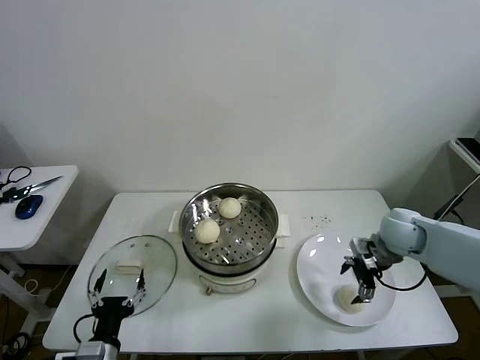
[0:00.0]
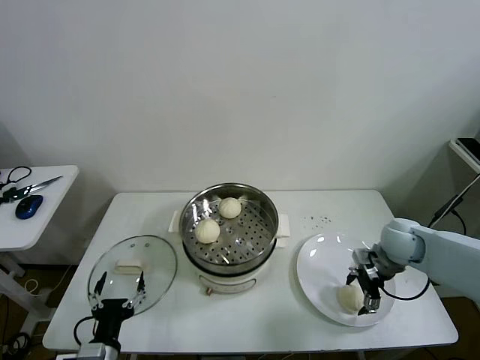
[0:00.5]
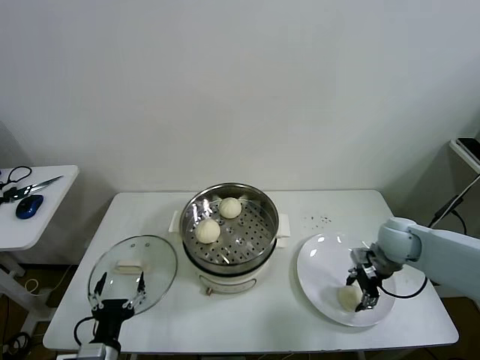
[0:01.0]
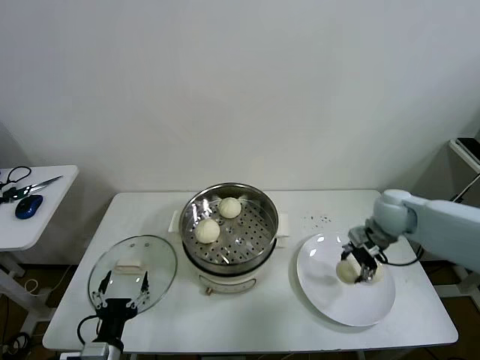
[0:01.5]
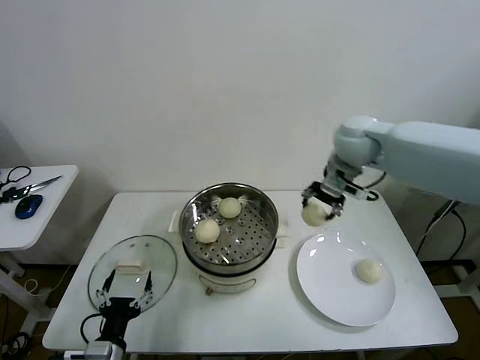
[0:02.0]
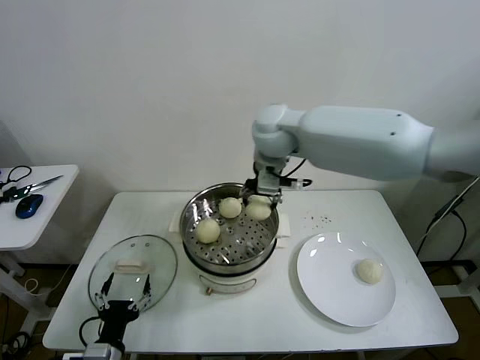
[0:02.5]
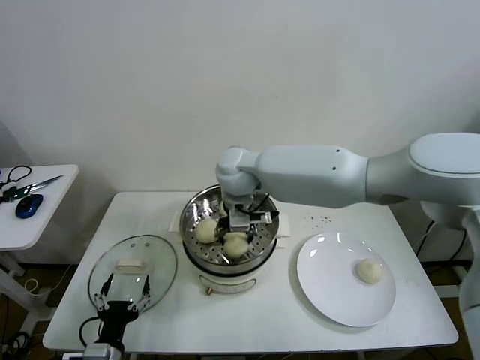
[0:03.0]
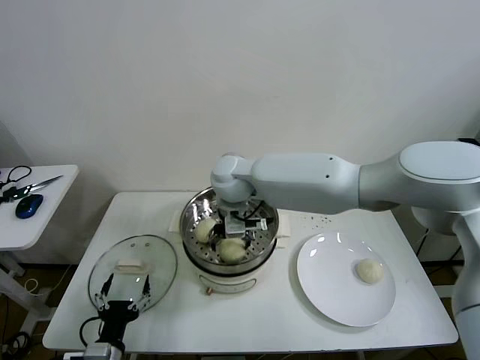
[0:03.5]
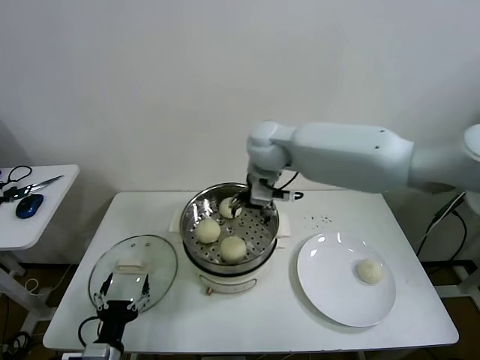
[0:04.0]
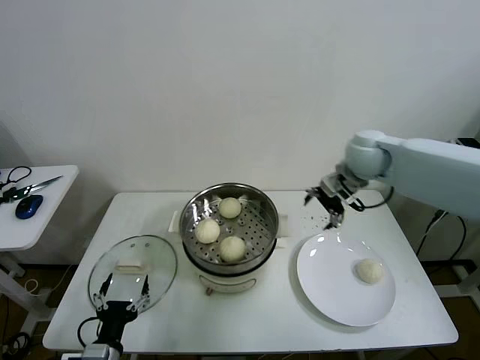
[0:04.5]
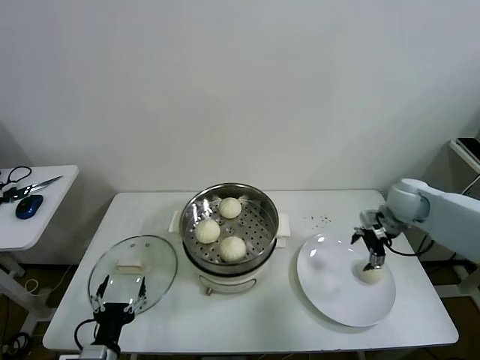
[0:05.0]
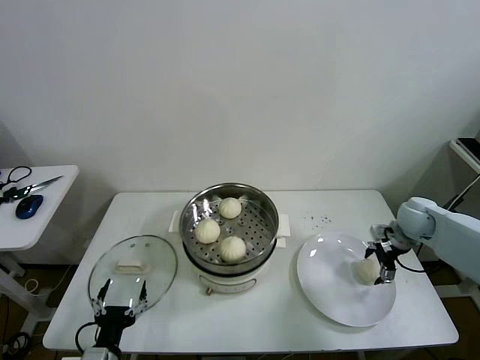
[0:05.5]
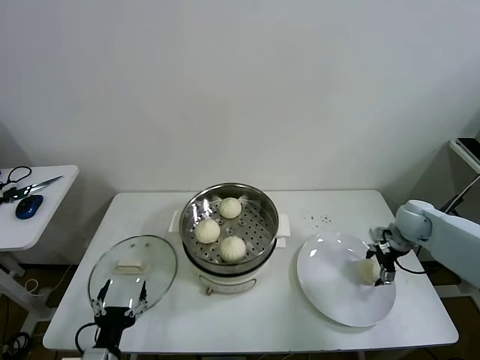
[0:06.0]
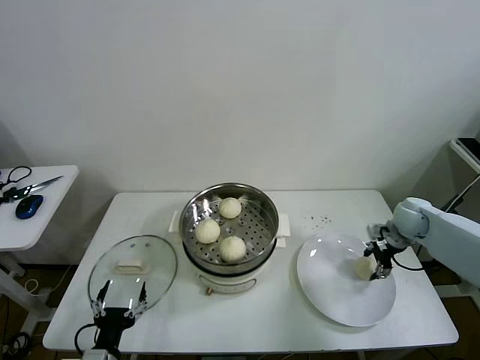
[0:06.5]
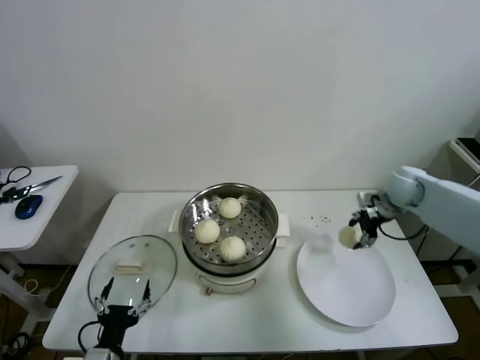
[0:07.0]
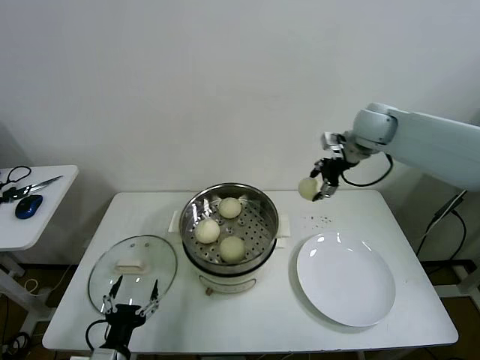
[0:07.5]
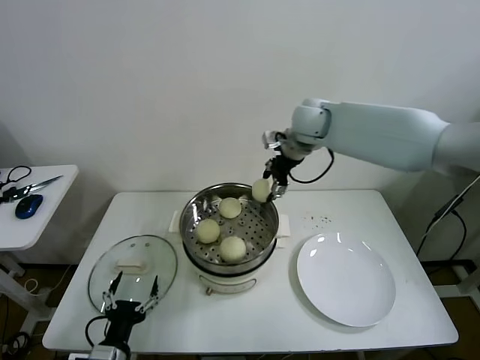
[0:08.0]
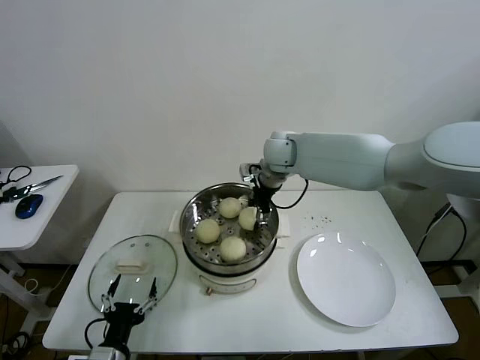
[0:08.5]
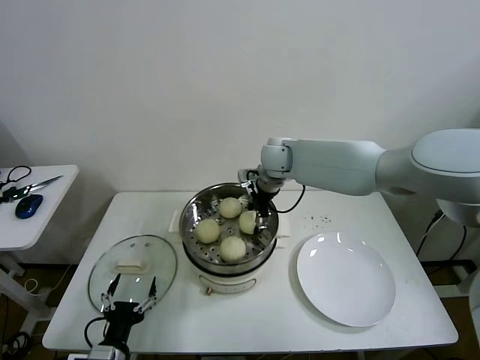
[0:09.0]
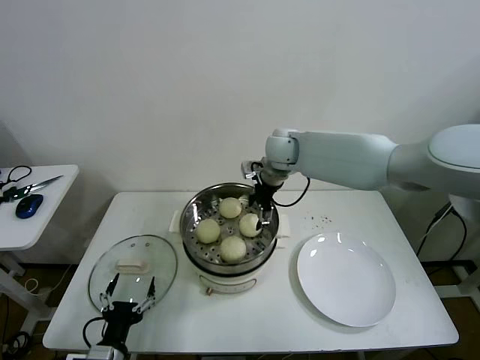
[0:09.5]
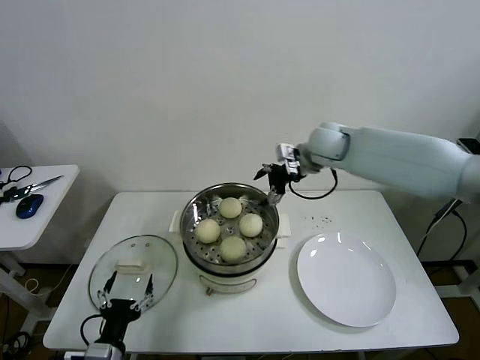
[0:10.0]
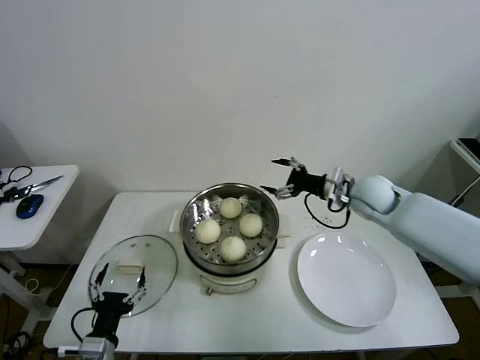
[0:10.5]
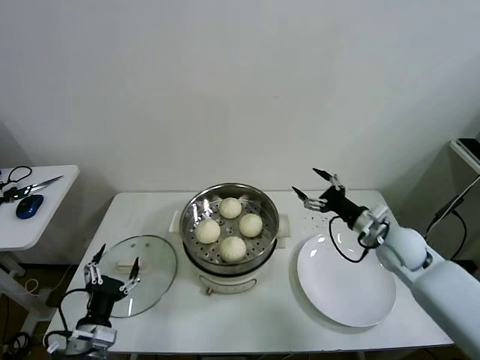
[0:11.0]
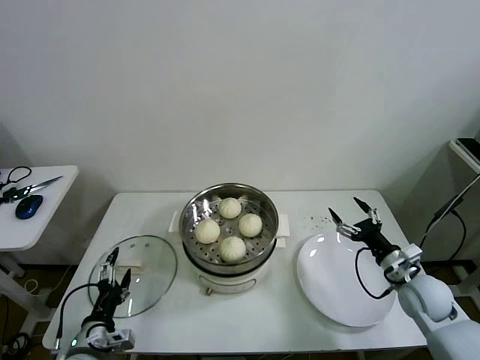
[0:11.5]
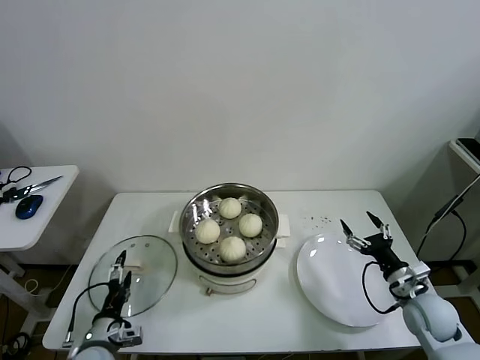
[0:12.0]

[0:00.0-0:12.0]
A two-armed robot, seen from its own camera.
Task of the whole recording: take steamed baozi put them in steamer then cover it.
Step, 1.5 to 3.5 s: Place the baozi on the steamer with right gripper.
Step, 4.0 to 6.0 s: Grasp the baozi in the plate with right gripper.
Step, 6.5 to 9.0 s: Place the baozi on the steamer with right gripper.
0.0 to 2.0 s: The right gripper shifts roughly 25 cm upward, to the left and forward, and closes up.
2.0 to 4.0 s: The right gripper goes some 15 cm to the left, and opens.
4.0 to 6.0 s: The right gripper goes approximately 40 cm to the right and downward.
6.0 to 8.0 s: The right gripper is displaced to the left and upward by some 35 cm, and closes up.
8.0 to 10.0 s: The right gripper opens its fingers.
10.0 to 12.0 s: The left gripper shifts some 5 cm forward. Meanwhile the right gripper shifts some 40 cm backward, downward and to the right.

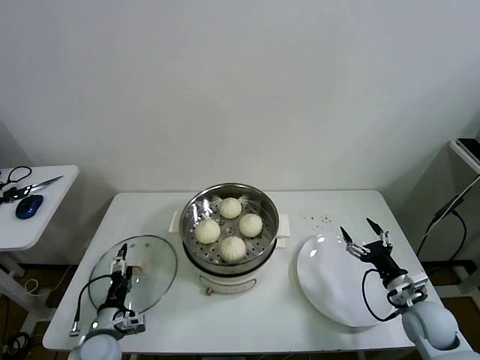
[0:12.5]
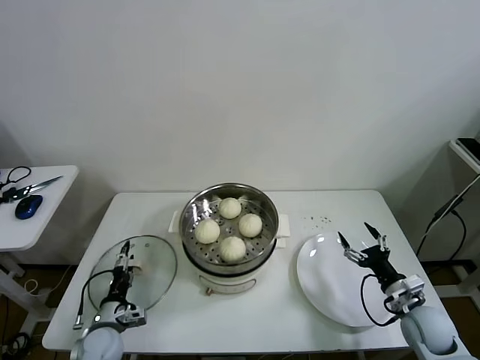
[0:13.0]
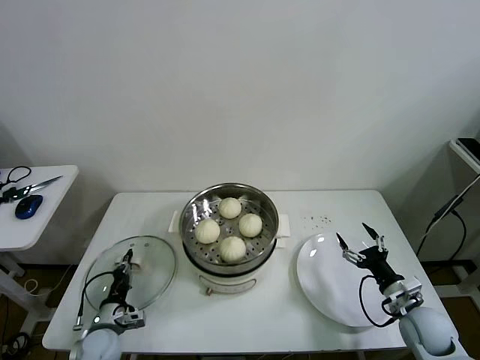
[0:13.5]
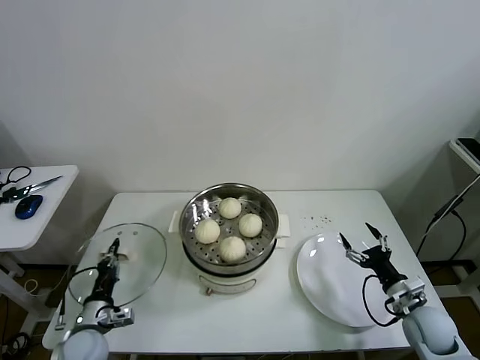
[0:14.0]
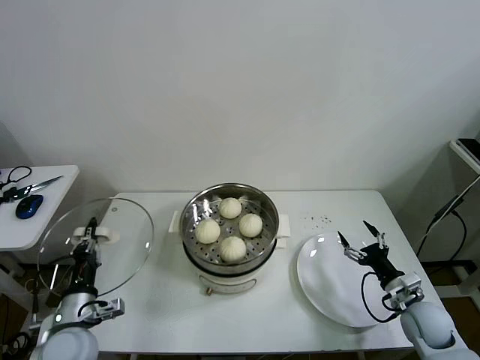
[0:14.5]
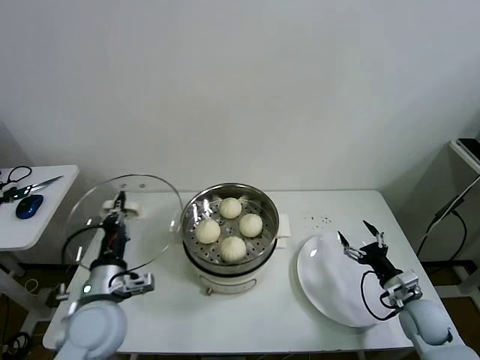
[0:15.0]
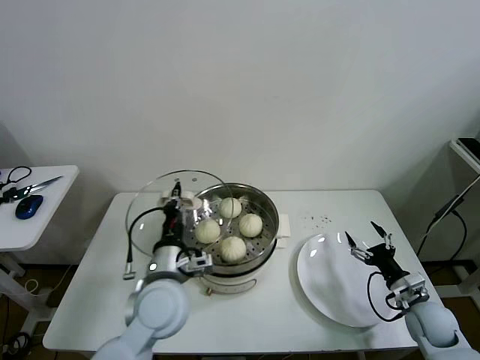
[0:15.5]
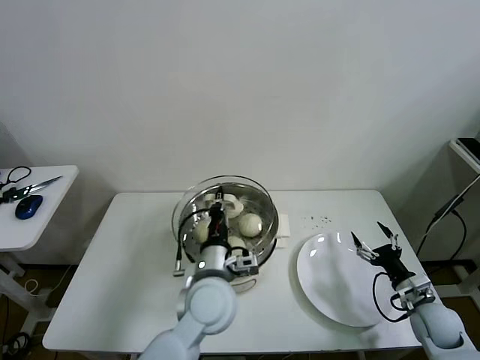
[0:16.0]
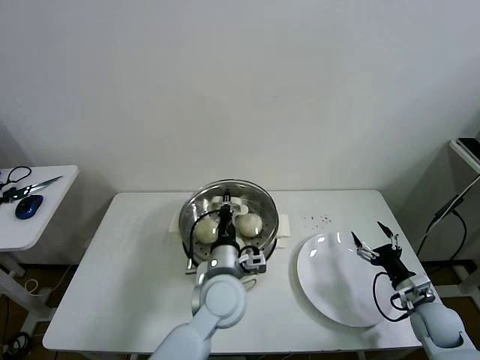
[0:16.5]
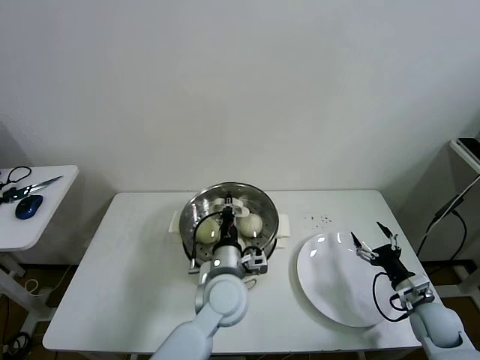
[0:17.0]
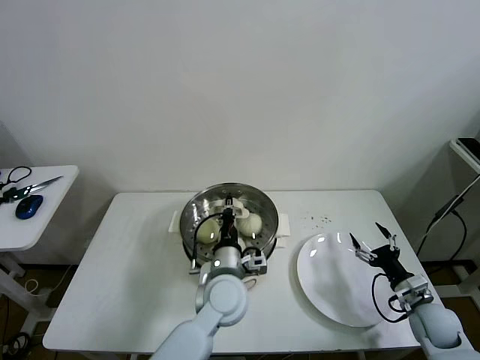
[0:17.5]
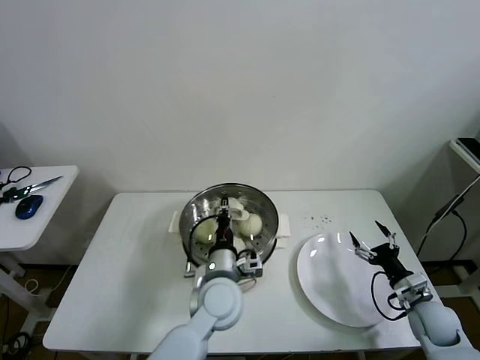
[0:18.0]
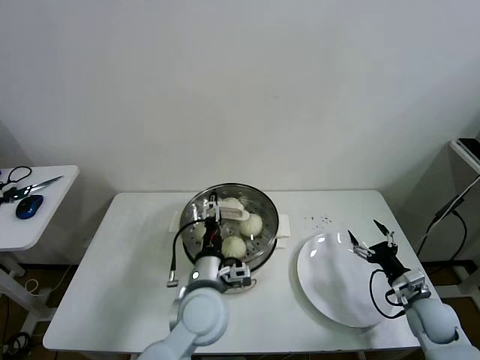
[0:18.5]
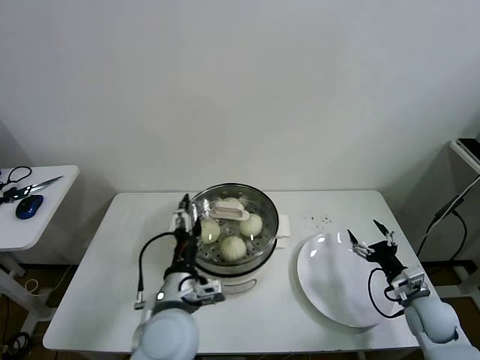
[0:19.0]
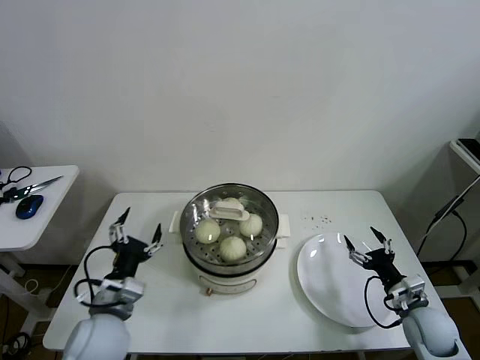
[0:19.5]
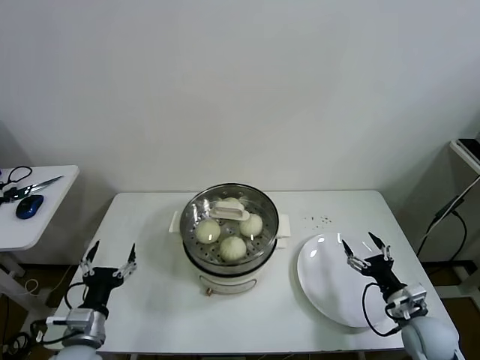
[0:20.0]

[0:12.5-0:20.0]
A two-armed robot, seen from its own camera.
Task of the whole recording: take steamed baozi put them in steamer then cover it.
Step, 14.0 to 18.5 s: Place the pot lid on the steamer with left gripper.
12.5 to 14.5 s: The left gripper moves upward, some 10 cm, and closes.
14.5 to 16.5 s: The left gripper is displaced to the right by about 30 cm.
16.5 to 18.0 s: There are only small adjustments of the grippers.
18.0 to 20.0 s: The right gripper changes place by about 5 cm, while the left gripper shifts about 30 cm to the left and backward, and opens up.

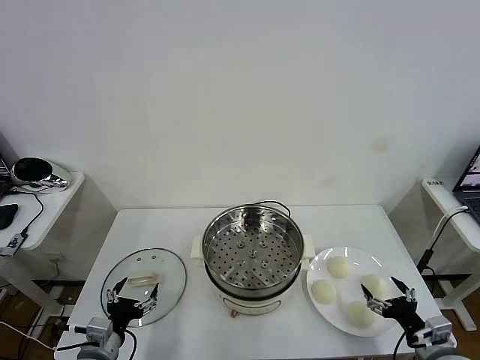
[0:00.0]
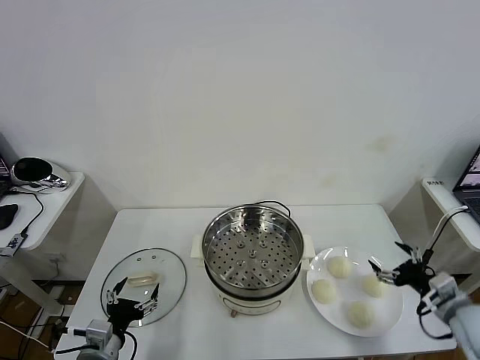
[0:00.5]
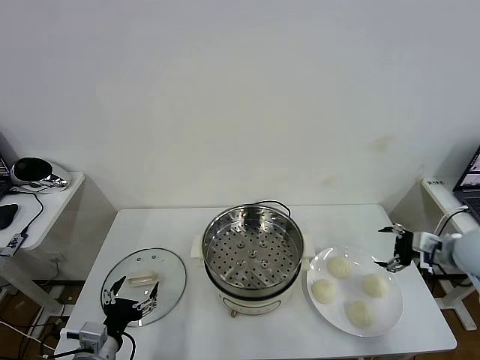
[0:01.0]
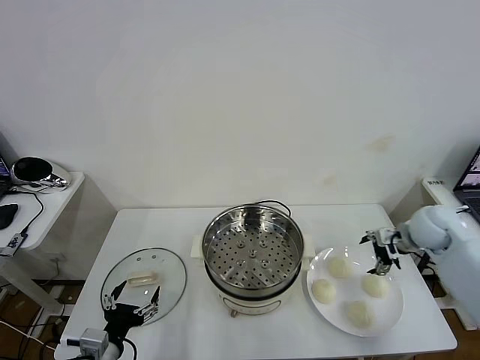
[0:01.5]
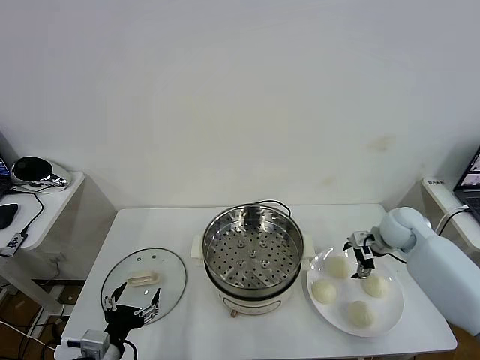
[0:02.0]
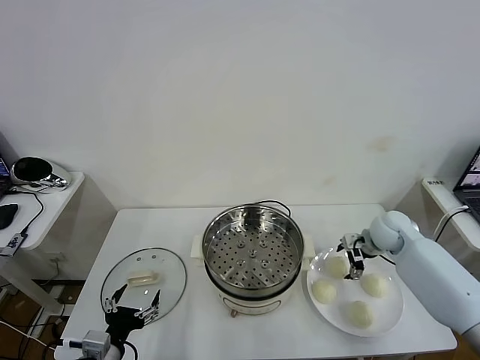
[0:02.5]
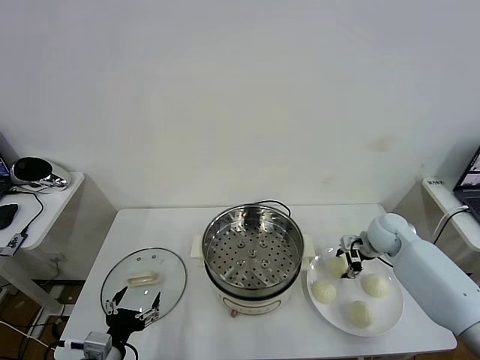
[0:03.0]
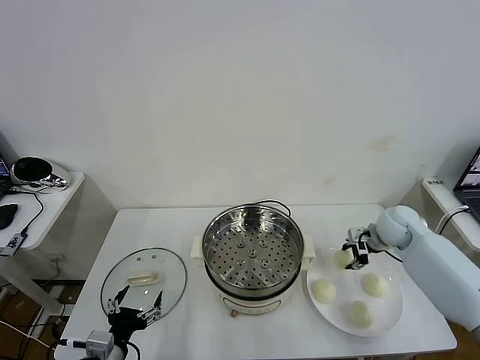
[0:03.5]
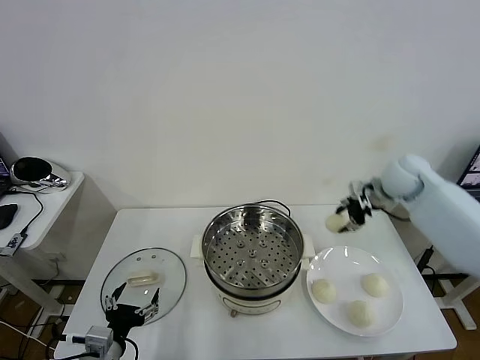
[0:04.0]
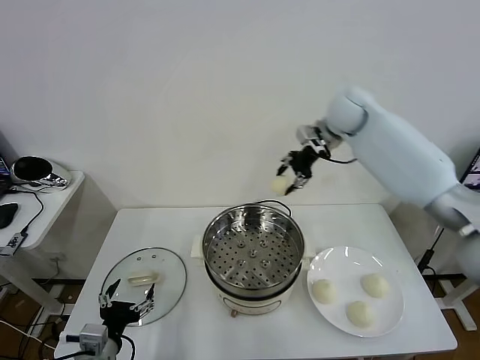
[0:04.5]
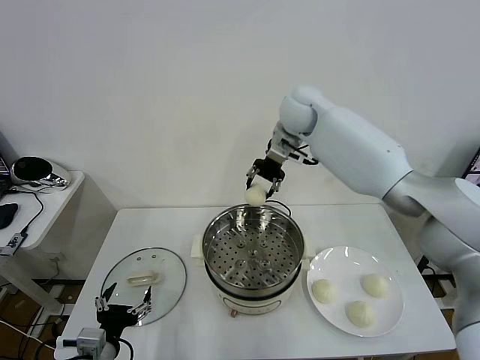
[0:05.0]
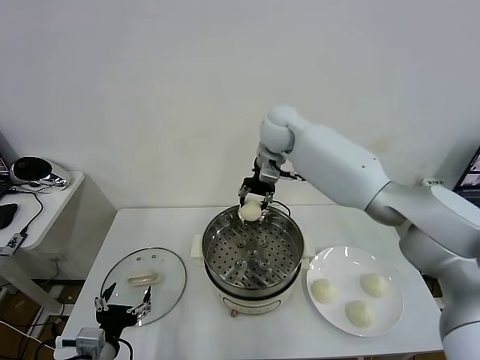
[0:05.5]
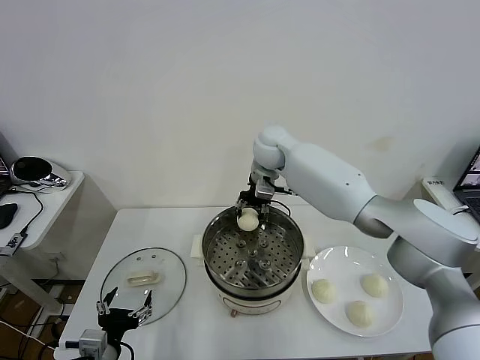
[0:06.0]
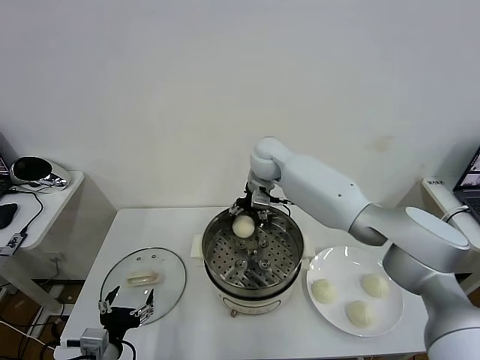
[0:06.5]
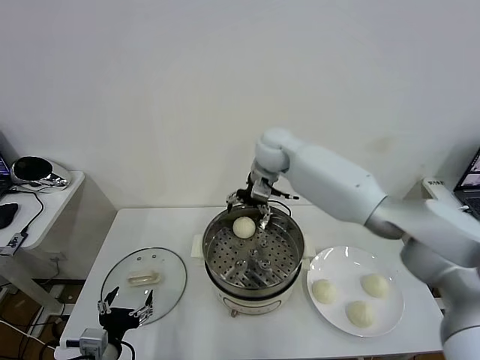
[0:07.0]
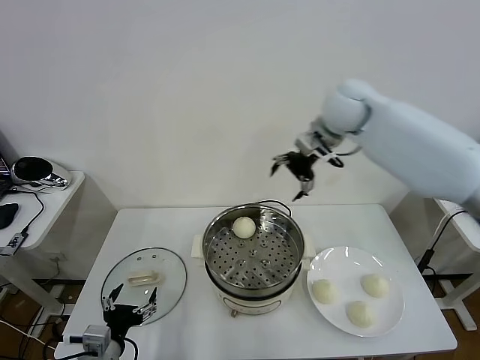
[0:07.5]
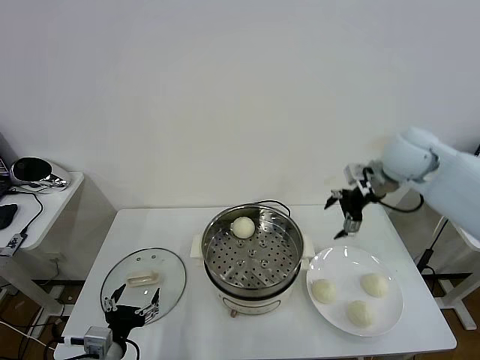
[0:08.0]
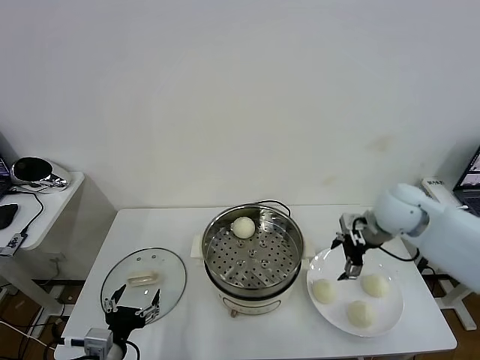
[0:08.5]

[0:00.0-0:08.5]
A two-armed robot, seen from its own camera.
Task of the whole recording: take steamed baozi put them in steamer then cover it.
Step, 0.0 to 3.0 s: Grasp the baozi in the plate with right gripper.
Step, 3.5 to 6.5 s: Place the baozi on the steamer with right gripper.
2.0 to 4.0 s: The right gripper moves upward and forward, approximately 15 cm, and closes.
4.0 to 6.5 s: The right gripper shifts approximately 30 cm to the left, and opens.
6.5 to 8.5 s: The right gripper goes about 30 cm to the right and backward.
